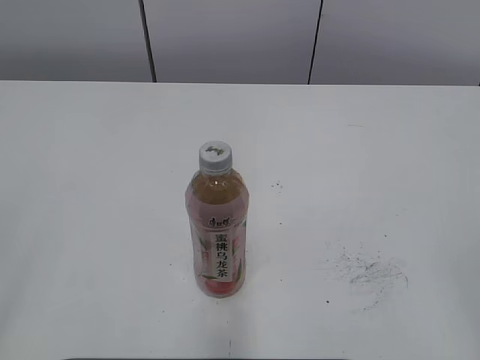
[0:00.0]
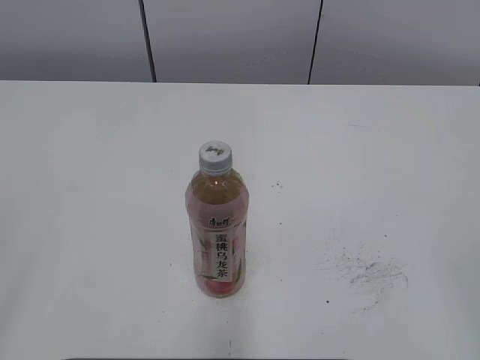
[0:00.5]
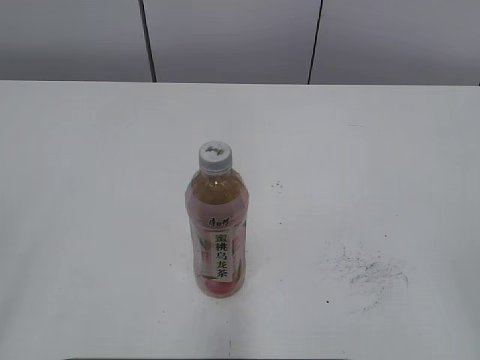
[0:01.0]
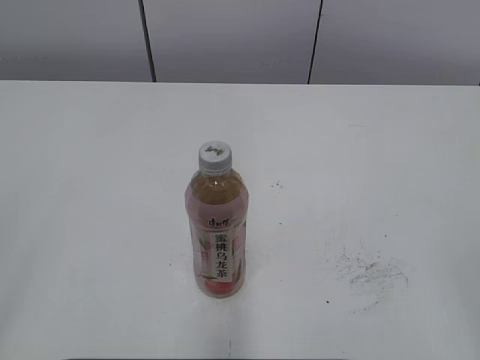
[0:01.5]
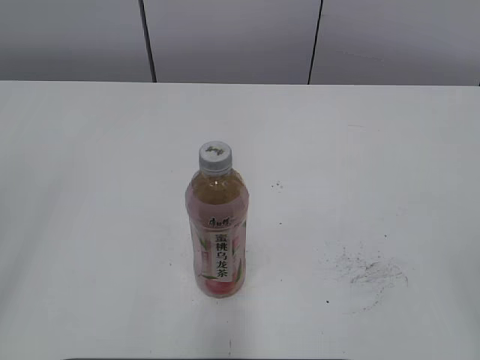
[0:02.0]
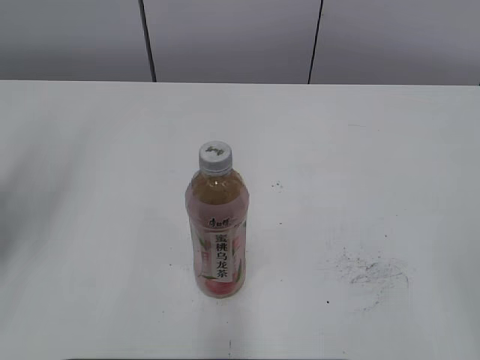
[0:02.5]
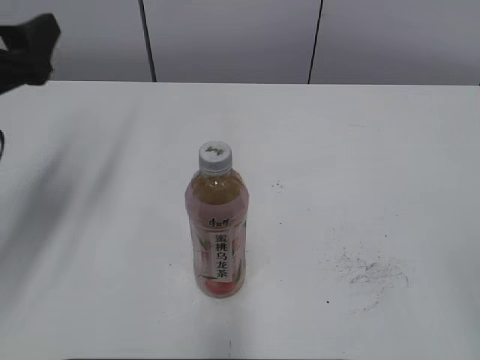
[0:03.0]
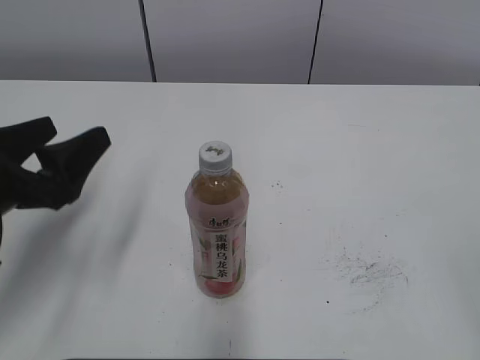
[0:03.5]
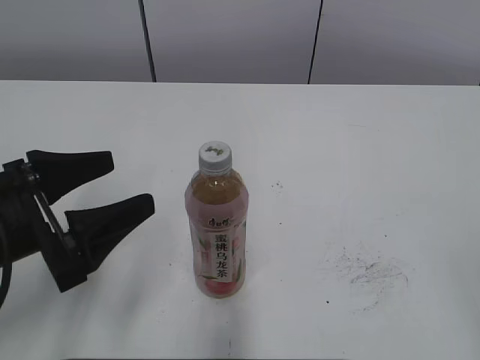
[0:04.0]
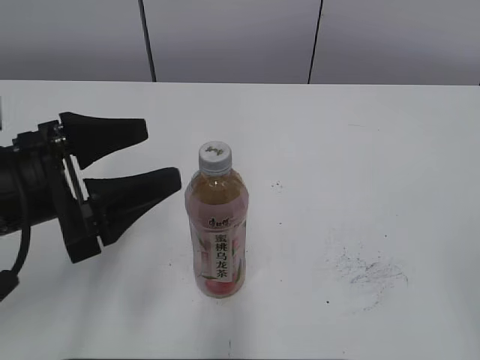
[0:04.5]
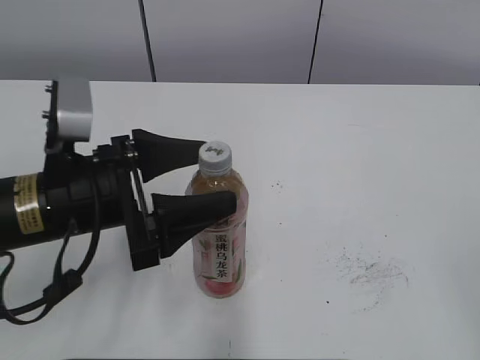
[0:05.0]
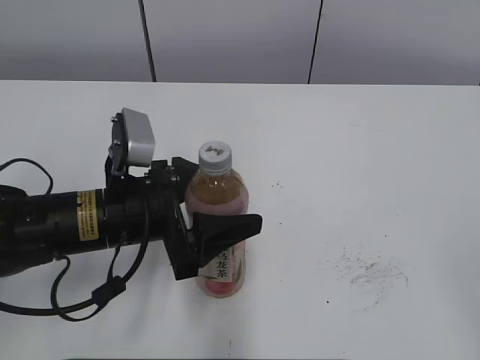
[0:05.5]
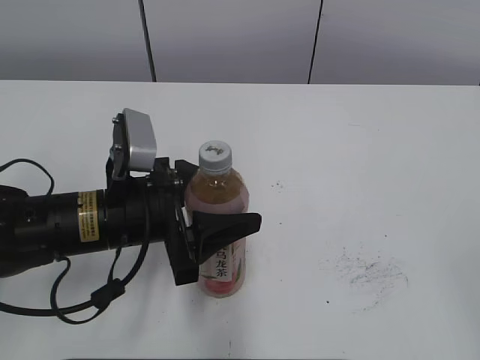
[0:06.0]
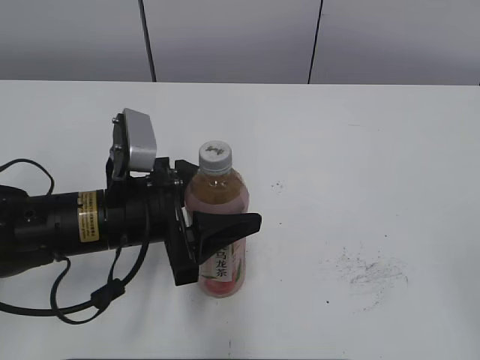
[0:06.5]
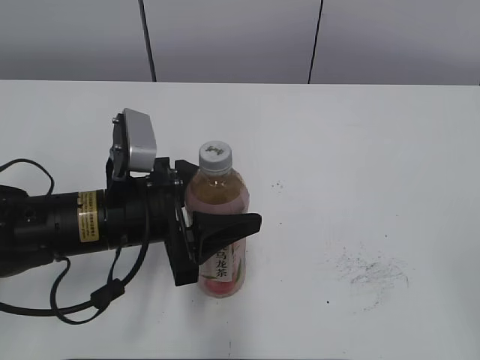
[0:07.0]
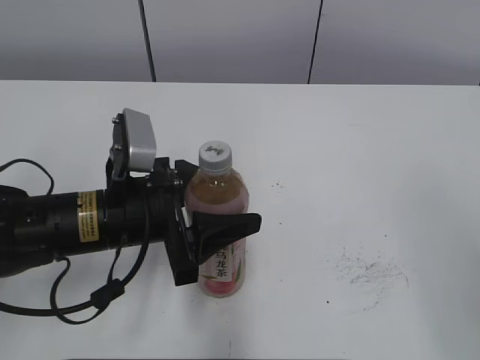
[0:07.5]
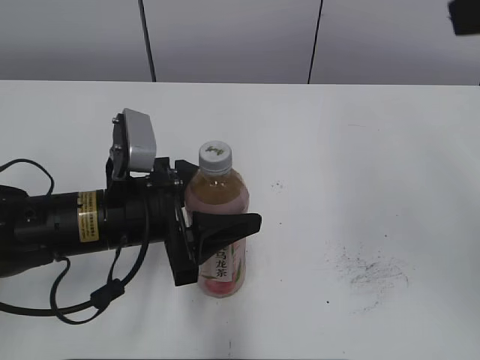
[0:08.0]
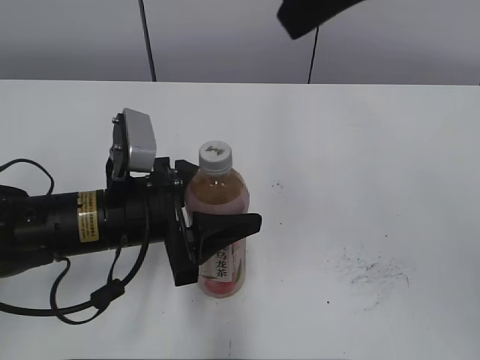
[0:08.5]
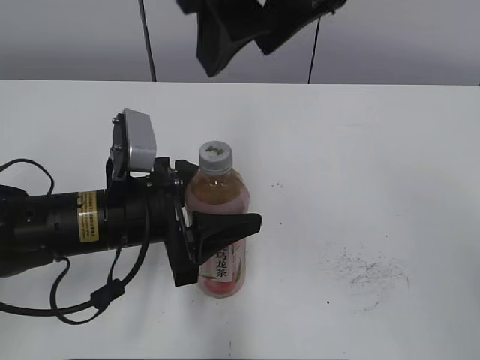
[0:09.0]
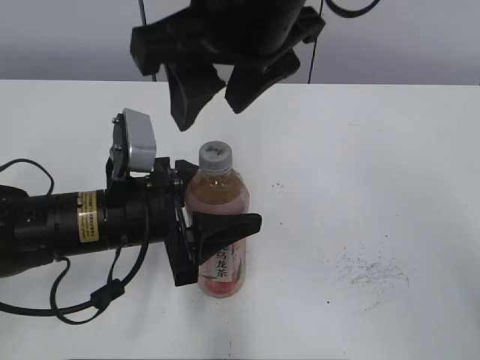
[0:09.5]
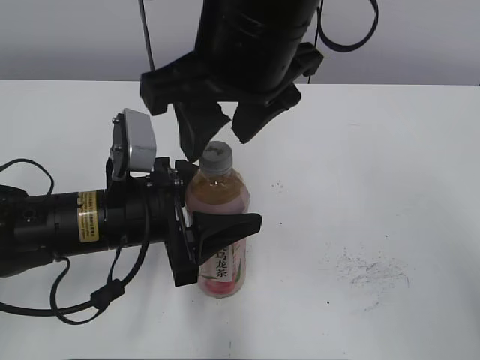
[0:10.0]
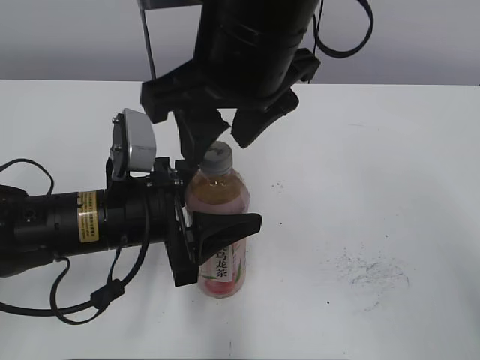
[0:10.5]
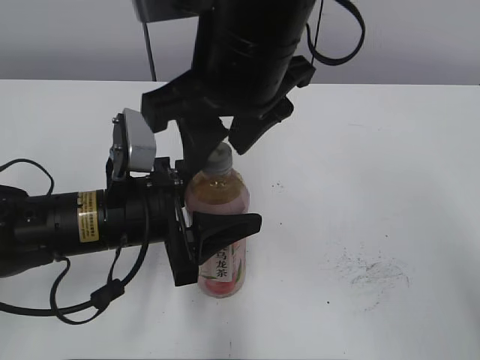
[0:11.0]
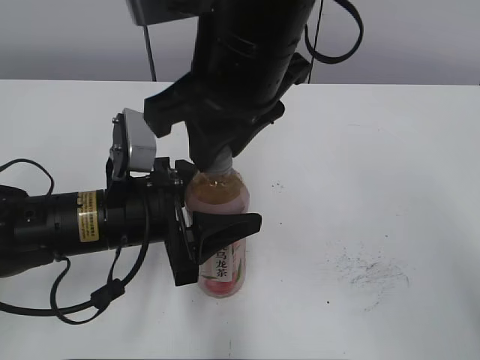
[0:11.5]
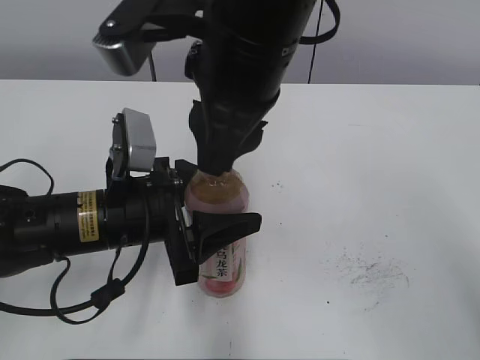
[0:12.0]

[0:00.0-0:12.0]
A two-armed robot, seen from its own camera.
Step, 0.0 to 5.5 s: Grab the Peach Oolong Tea with the left hand.
2.0 to 4.0 s: The left gripper shifts some 25 cm downward, forward and to the right, and opens.
4.0 to 6.0 s: The left gripper heads to the right and forward, covering some 10 cm, and closes its fingers.
6.0 to 8.0 s: The right gripper heads forward, upward and to the left, covering roughly 25 cm.
8.0 to 10.0 s: The right gripper goes approximately 25 cm to the left and downward.
10.0 to 12.0 s: The right gripper closes.

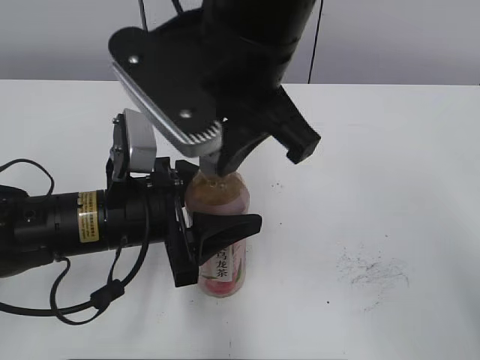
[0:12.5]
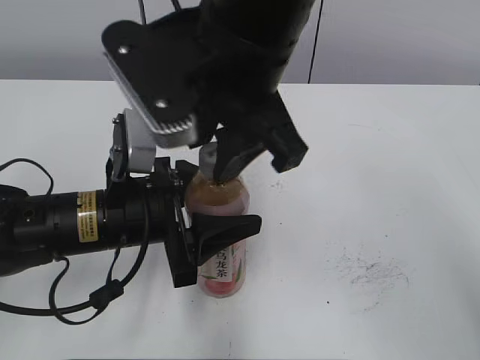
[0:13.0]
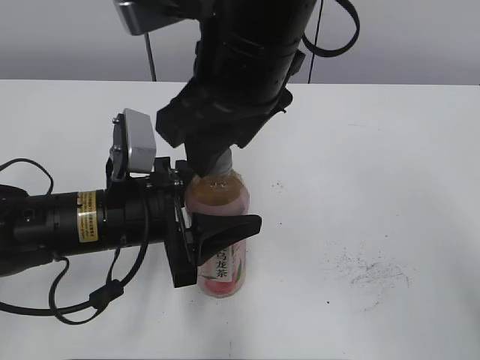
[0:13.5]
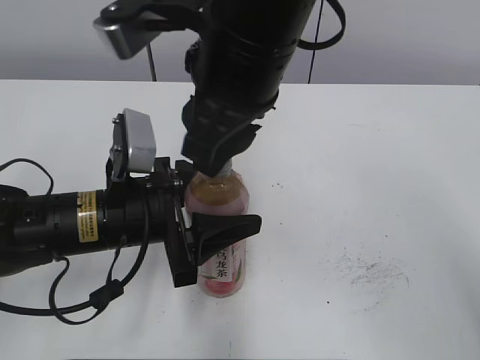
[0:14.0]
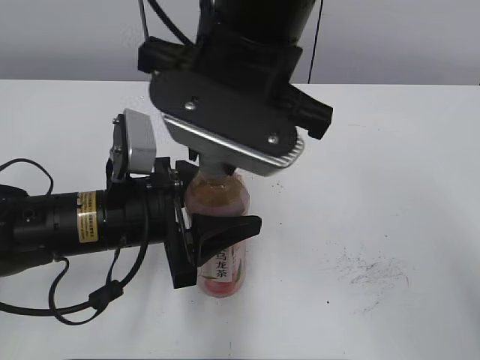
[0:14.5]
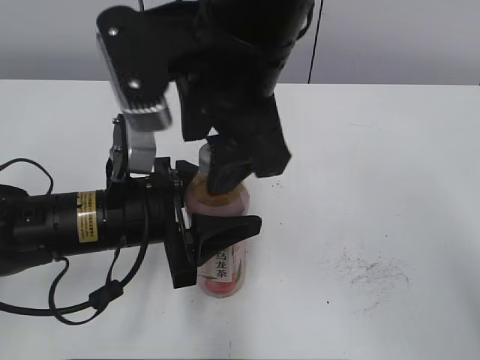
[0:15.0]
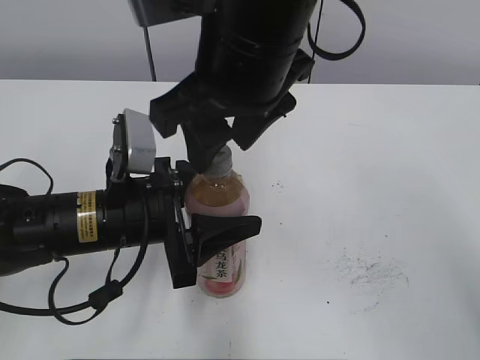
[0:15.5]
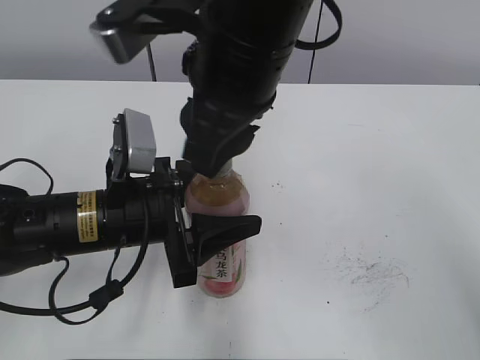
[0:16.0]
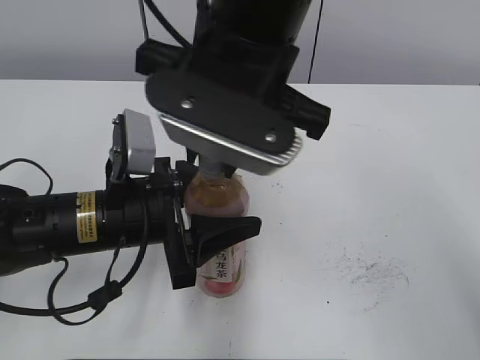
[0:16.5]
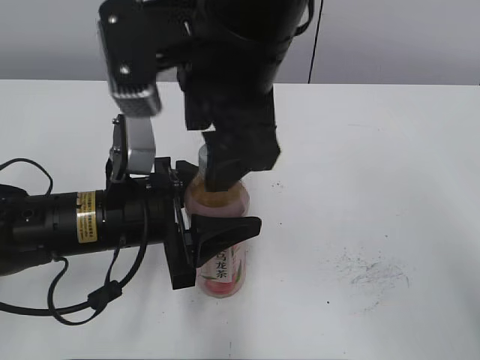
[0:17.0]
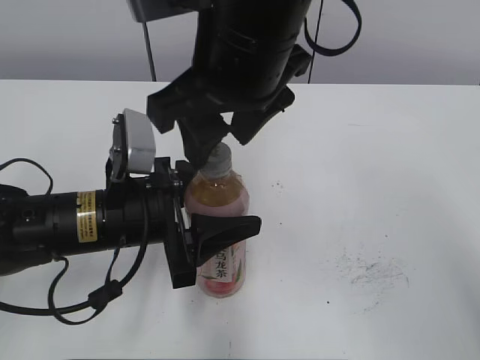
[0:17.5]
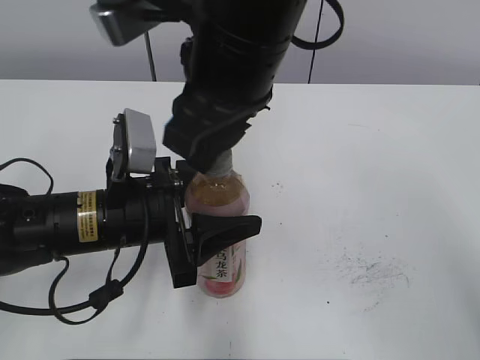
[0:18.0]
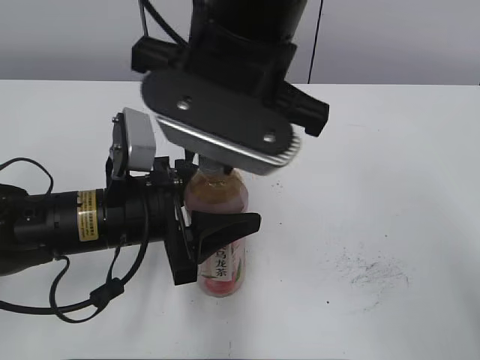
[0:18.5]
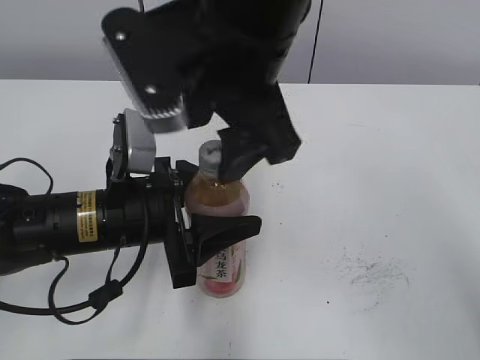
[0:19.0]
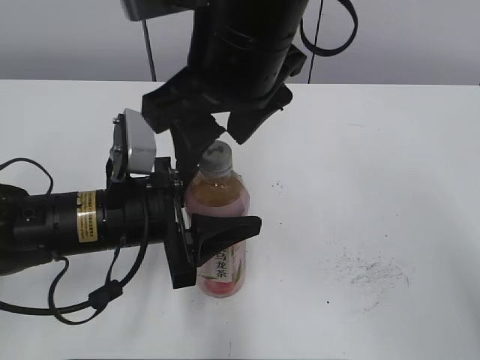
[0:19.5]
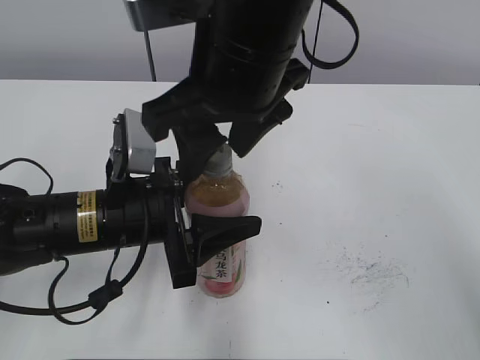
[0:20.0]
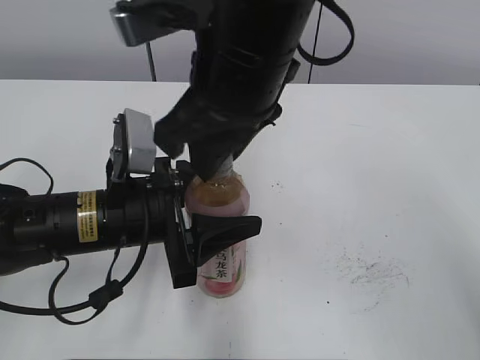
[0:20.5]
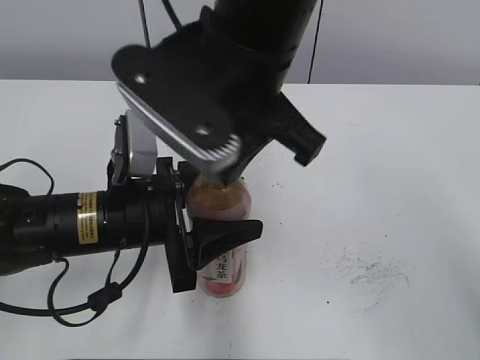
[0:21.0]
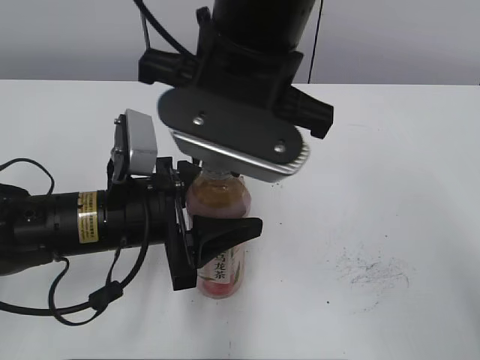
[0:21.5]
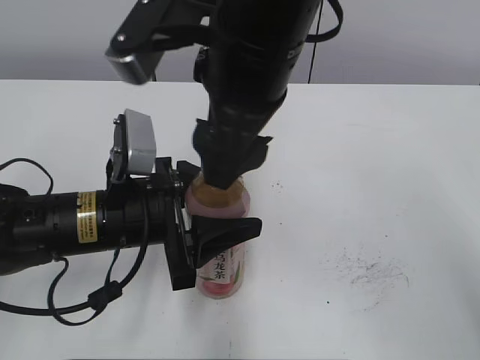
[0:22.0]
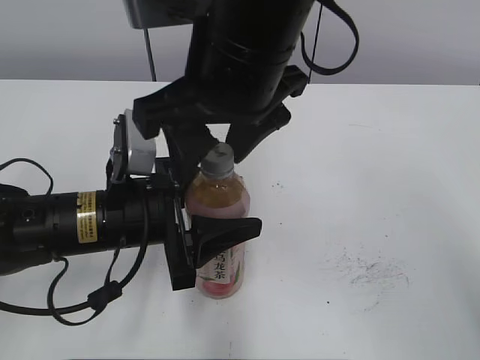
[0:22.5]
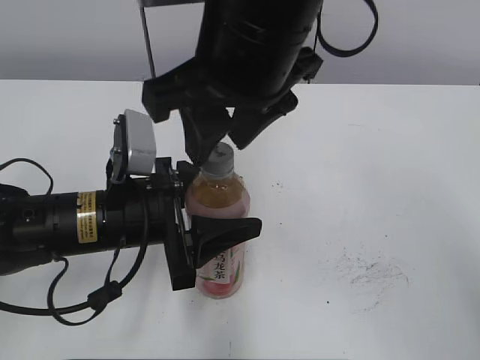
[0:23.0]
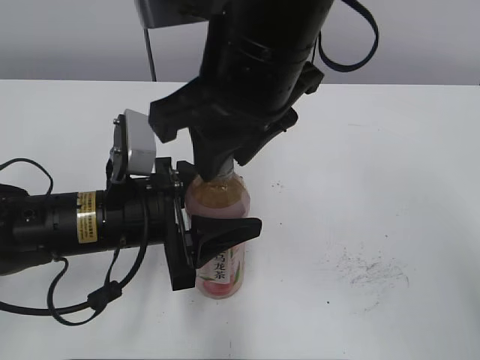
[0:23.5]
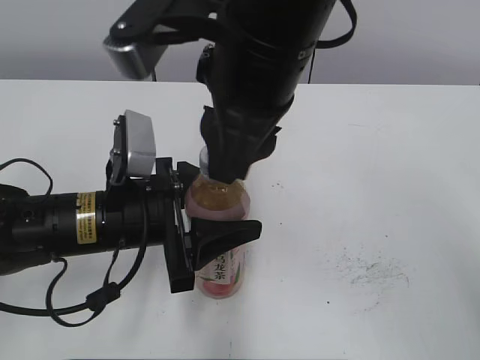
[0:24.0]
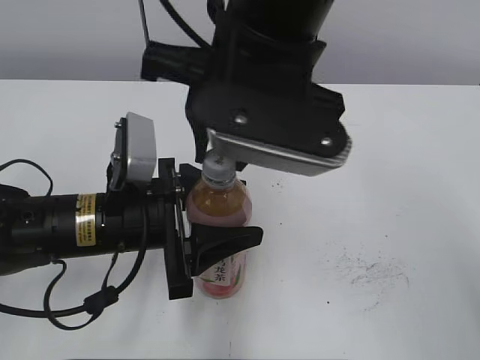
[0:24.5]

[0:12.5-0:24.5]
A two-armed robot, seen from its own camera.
12.5 to 14.5 s: The right gripper opens, then closes again.
14.5 to 16.5 s: The right gripper opens, then closes once more.
16.5 to 18.5 s: The right gripper opens, then closes again.
18.5 to 20.5 s: The right gripper opens, then closes again.
20.5 to 22.5 s: The right gripper opens.
22.5 to 24.5 s: The right gripper closes up.

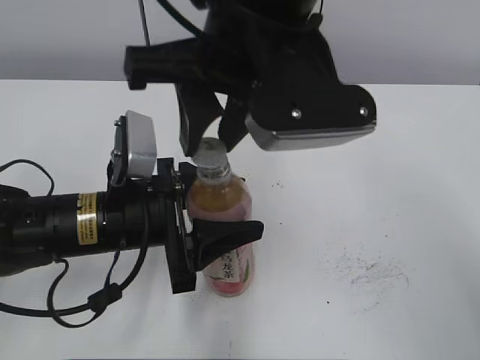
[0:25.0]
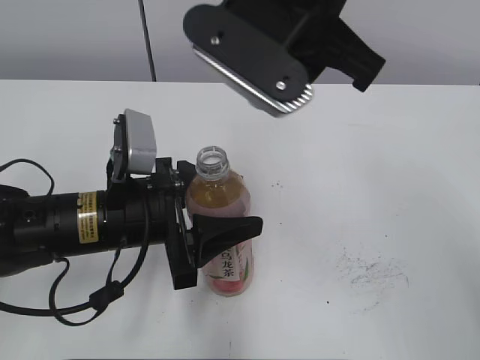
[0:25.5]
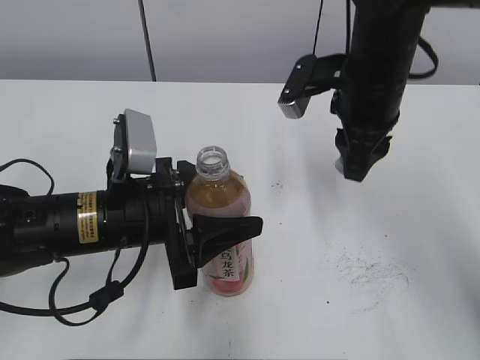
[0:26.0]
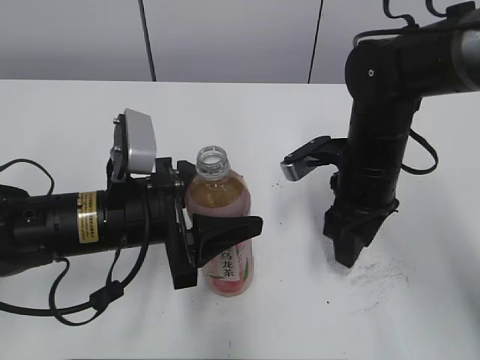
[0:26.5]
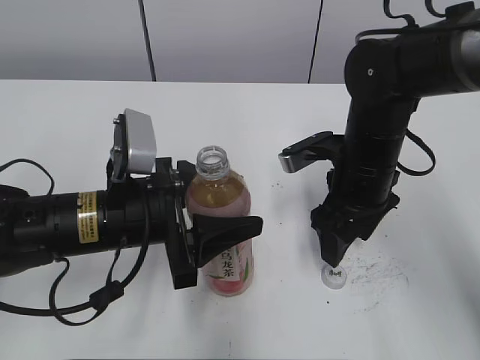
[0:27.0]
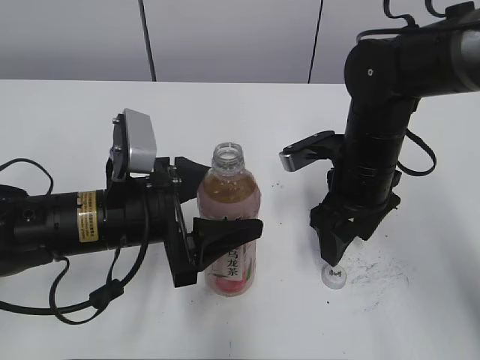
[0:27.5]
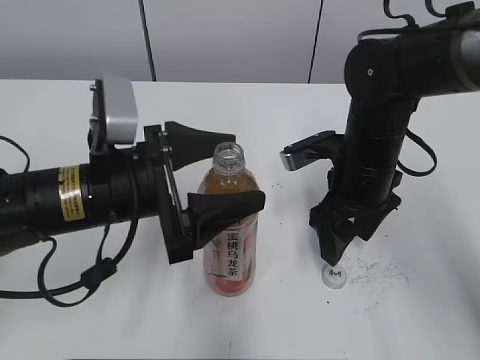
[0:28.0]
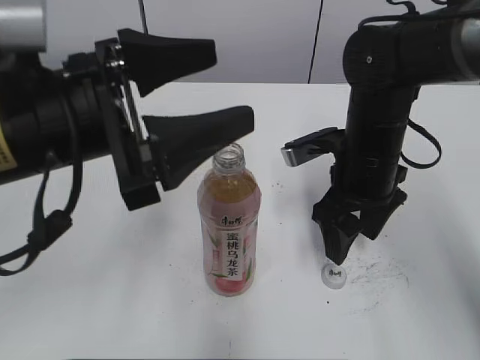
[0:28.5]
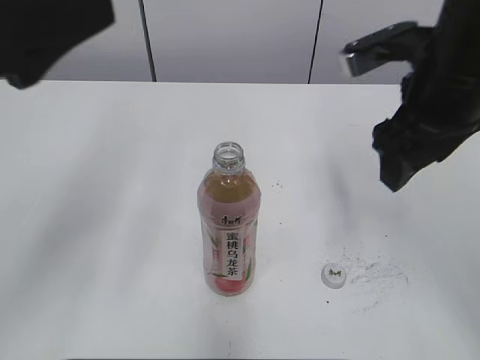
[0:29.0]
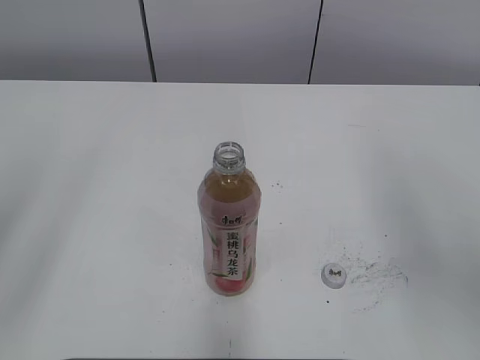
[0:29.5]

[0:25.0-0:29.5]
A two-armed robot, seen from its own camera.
Step, 25.5 to 26.5 s: Place the bottle cap on the right.
Step, 27.0 to 27.5 s: Place the Peach Oolong Tea with the left hand.
25.0 to 27.0 s: The right gripper shifts about 25 cm downward and to the right, and opens its fingers.
27.0 to 29.5 s: The left gripper moves upward, to the left and backward, about 30 cm, and opens its fingers. The right gripper goes approximately 30 cm upward, backward and to the right.
